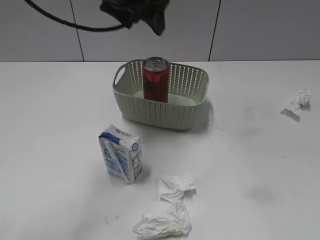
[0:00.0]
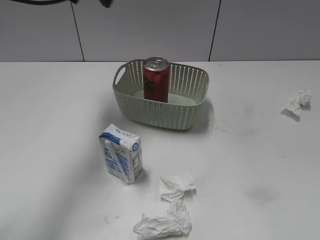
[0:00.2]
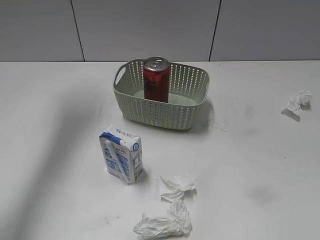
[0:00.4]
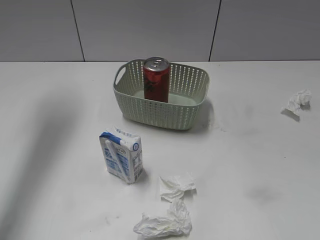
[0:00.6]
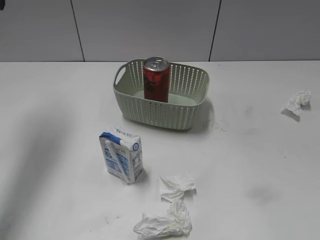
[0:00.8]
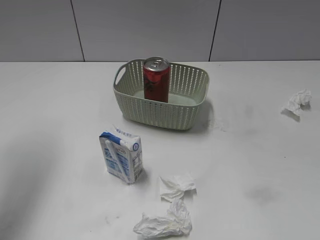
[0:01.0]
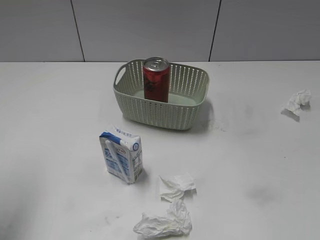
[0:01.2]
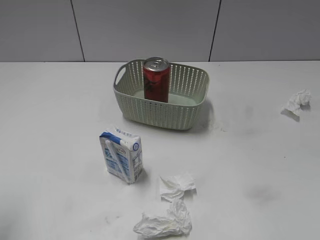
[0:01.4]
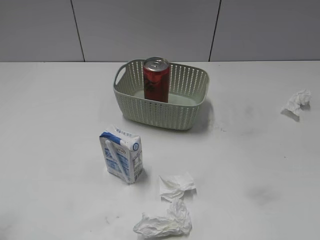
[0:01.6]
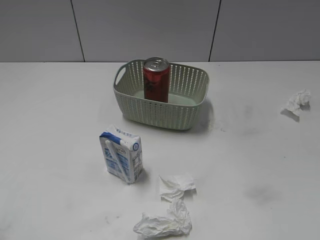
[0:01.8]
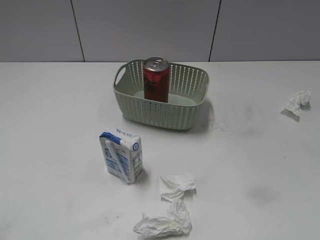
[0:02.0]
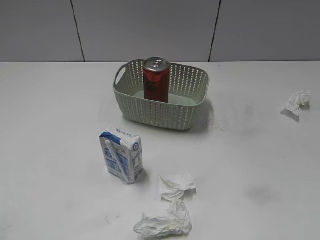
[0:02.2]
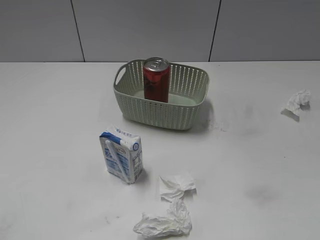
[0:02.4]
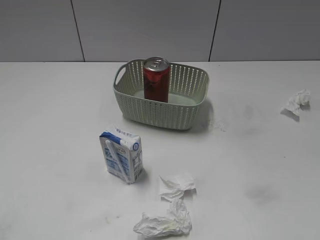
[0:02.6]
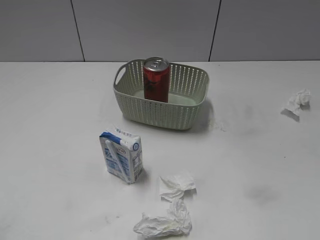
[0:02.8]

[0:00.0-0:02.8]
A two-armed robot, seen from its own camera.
0:00.0 to 0:01.4: The left gripper goes about 35 cm backward and to the left.

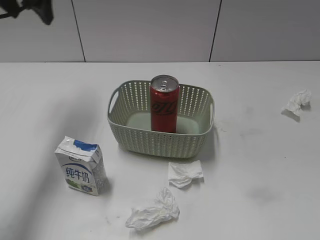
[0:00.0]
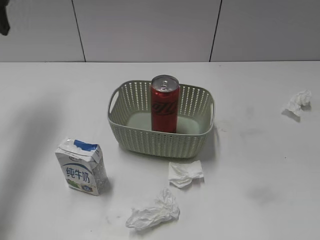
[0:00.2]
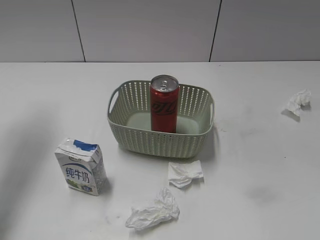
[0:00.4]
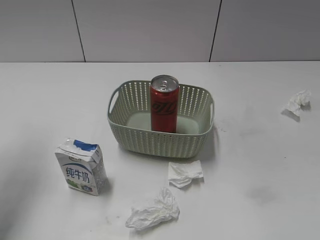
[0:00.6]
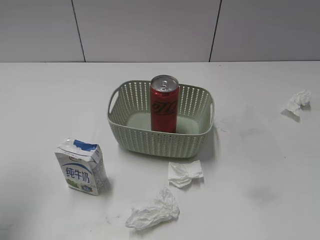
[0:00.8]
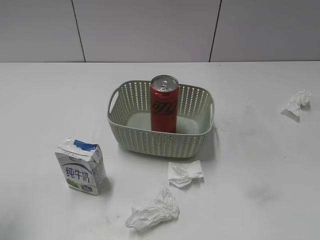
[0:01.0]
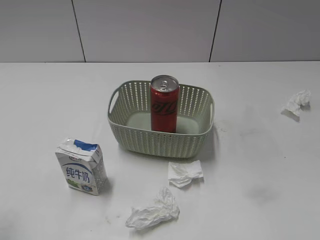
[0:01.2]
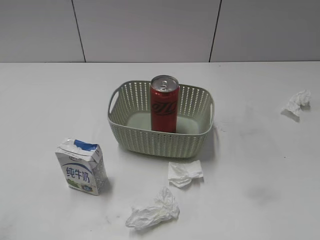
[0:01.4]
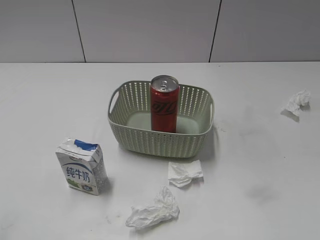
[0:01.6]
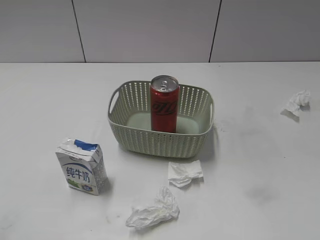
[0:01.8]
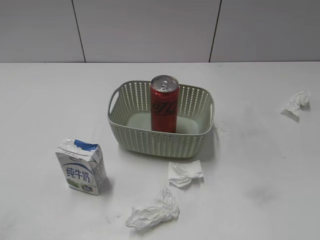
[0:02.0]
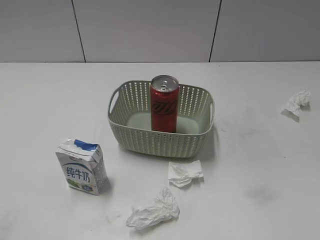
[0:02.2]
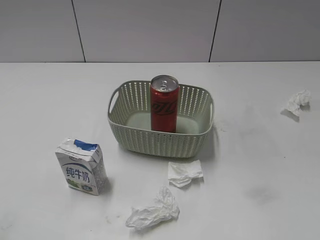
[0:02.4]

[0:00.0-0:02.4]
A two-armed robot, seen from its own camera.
0:00.0 to 0:01.2: The left gripper shifts some 30 cm backward.

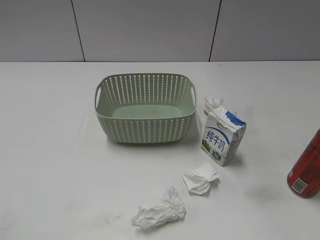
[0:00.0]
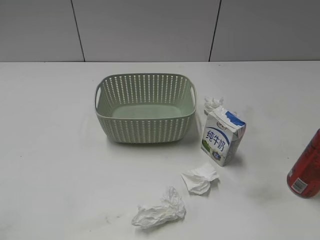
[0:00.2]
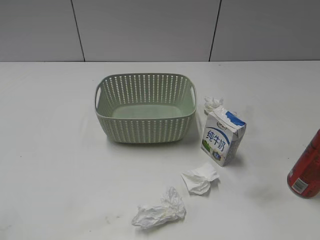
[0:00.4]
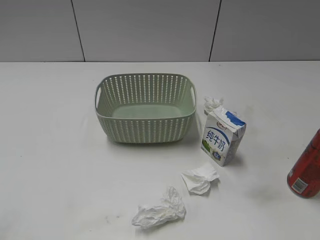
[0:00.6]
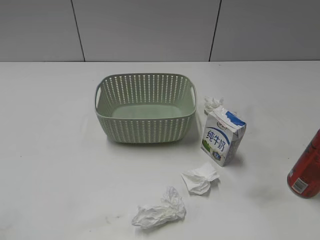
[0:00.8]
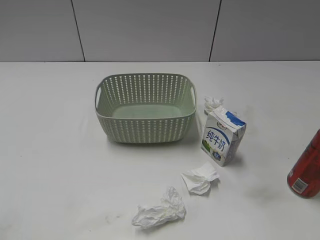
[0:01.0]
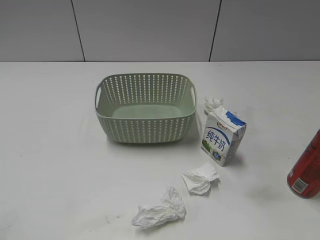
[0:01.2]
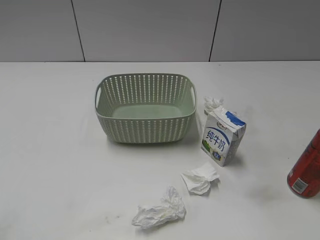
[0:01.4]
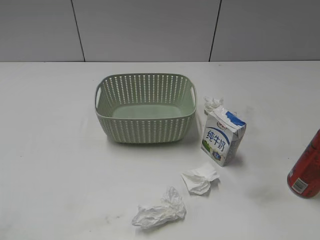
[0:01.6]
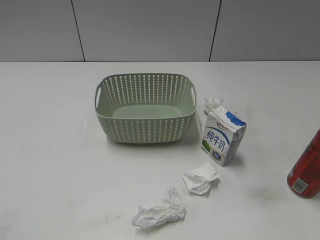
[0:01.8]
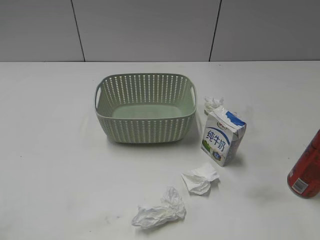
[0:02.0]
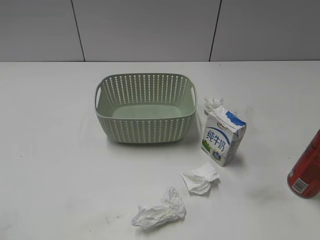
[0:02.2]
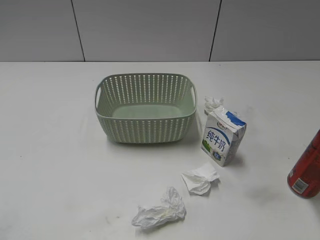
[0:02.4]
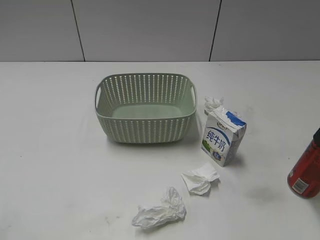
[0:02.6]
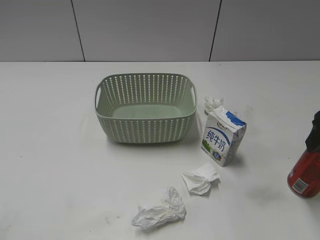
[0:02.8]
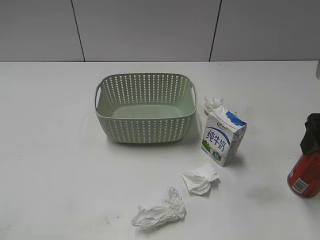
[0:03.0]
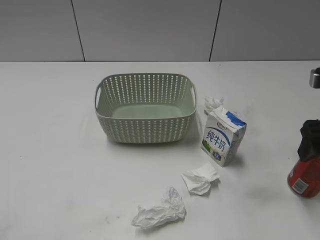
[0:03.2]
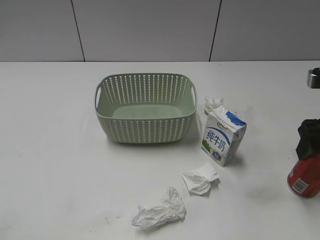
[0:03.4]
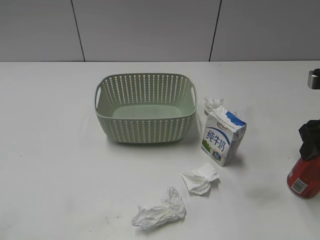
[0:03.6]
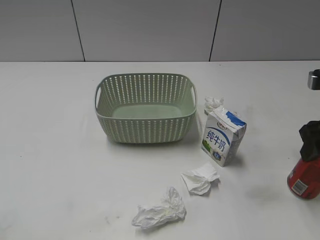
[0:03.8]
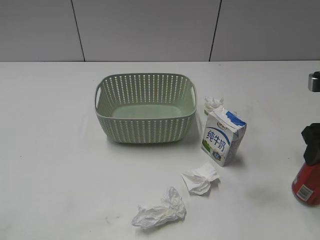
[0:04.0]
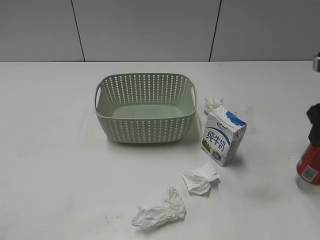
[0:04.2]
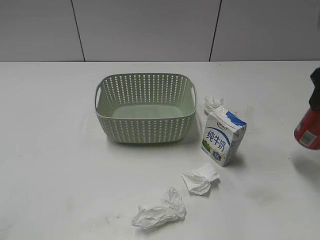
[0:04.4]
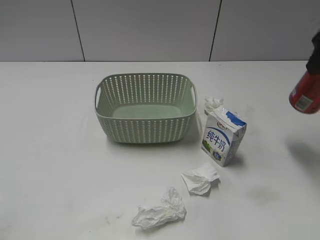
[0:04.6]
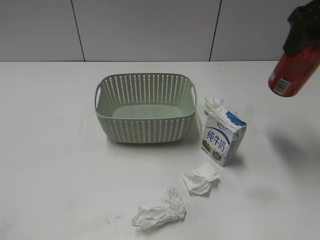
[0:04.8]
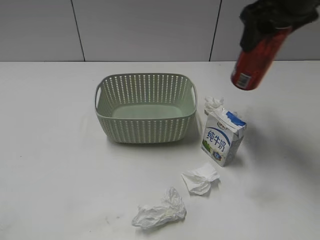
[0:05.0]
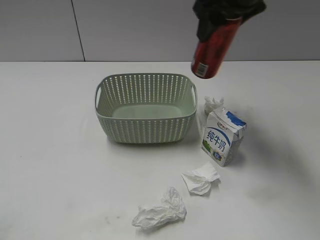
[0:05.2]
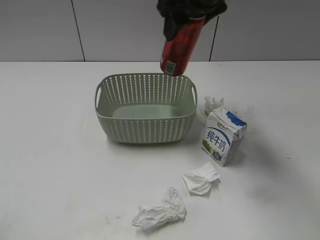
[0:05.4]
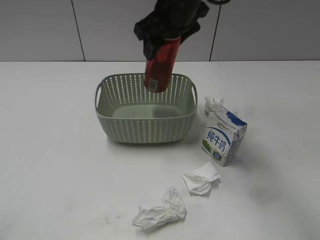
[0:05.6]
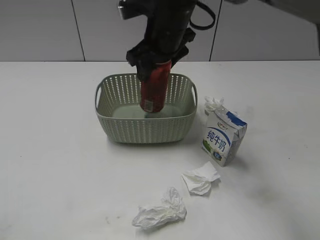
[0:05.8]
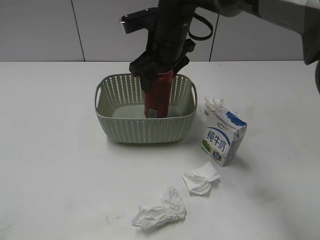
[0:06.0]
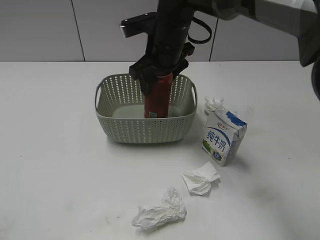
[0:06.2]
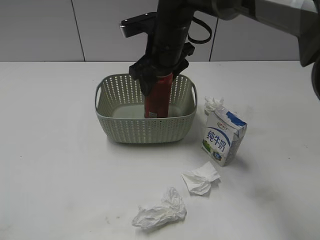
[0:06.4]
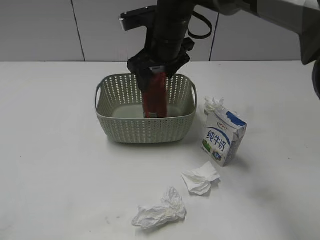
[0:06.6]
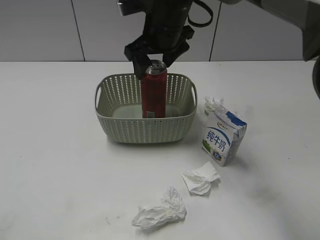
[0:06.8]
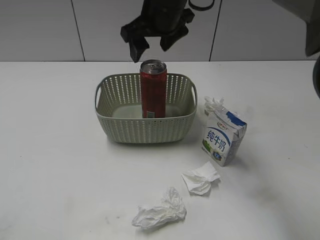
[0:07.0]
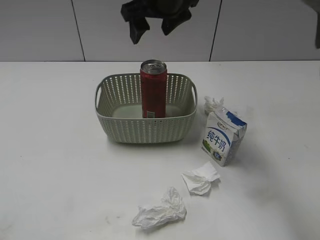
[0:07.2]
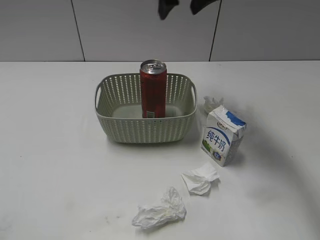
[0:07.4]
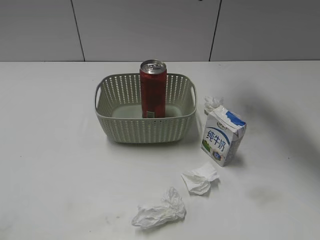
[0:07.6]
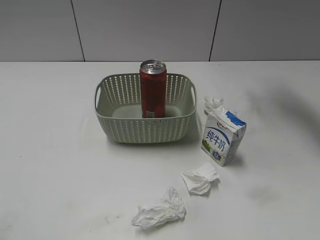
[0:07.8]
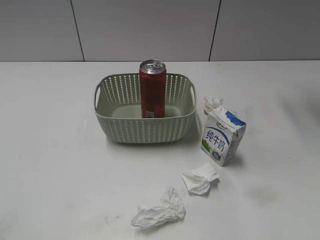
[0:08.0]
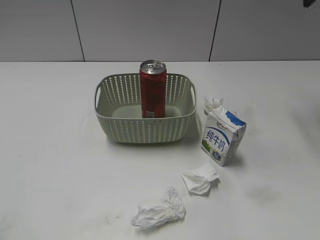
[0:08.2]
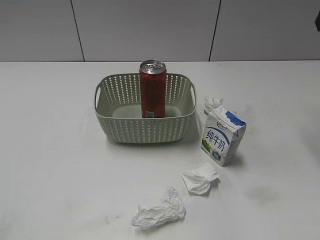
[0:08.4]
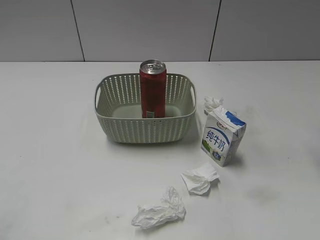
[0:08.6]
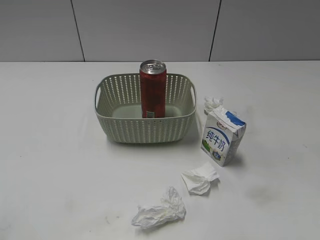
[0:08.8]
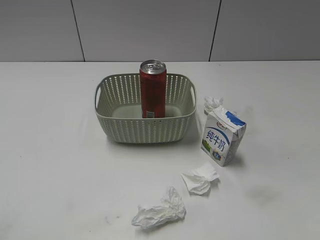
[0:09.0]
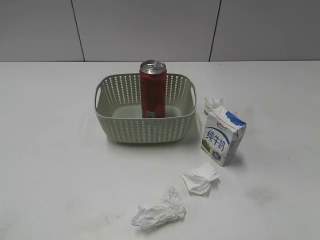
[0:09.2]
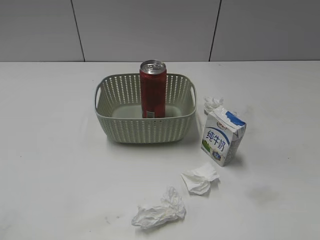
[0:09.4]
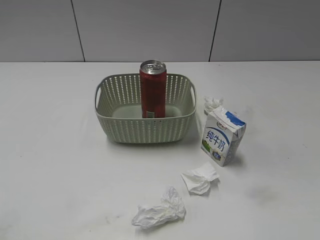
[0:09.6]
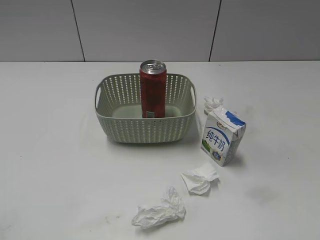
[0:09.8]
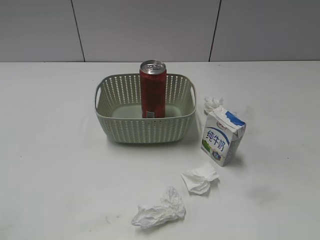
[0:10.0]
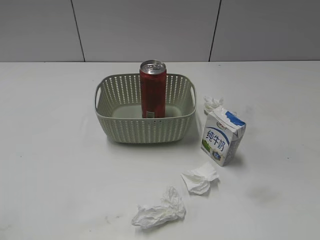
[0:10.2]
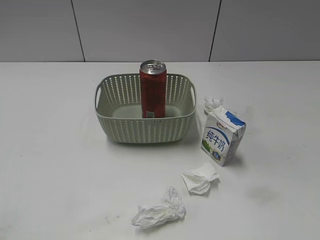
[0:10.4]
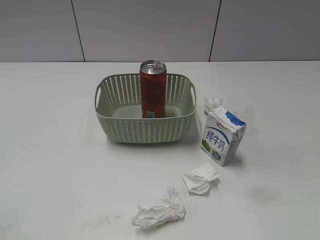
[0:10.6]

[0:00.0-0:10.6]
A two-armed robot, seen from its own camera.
Step, 0:04.0 to 0:07.0: Place the cola can in the basket with right gripper.
0:01.6 to 0:03.0: The right gripper travels forward by about 20 cm.
0:03.0 to 0:04.6: The right gripper travels upward and forward by about 10 cm, and closes up.
0:04.6 to 0:06.0: The right gripper moves to the left and forward, about 30 cm.
0:06.0 to 0:07.6: The right gripper is displaced upward and to the right by about 20 cm, and opens.
0:07.6 to 0:09.0: The right gripper shifts roughly 30 cm backward and to the right.

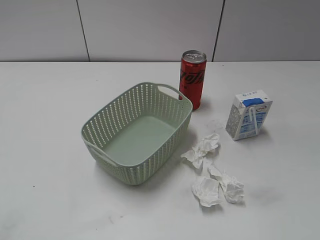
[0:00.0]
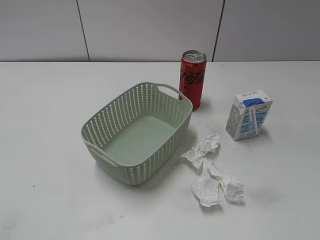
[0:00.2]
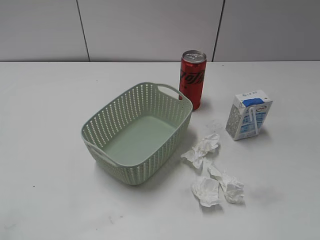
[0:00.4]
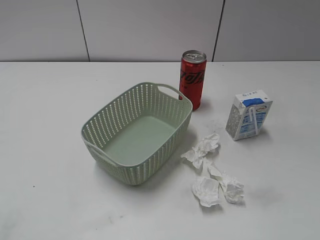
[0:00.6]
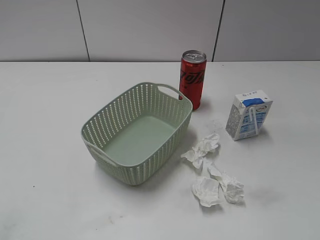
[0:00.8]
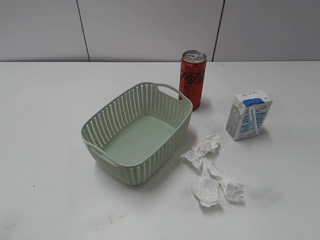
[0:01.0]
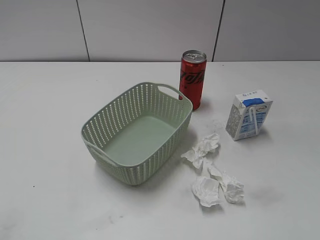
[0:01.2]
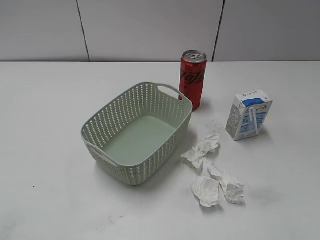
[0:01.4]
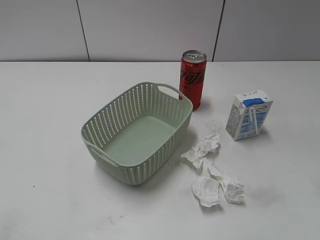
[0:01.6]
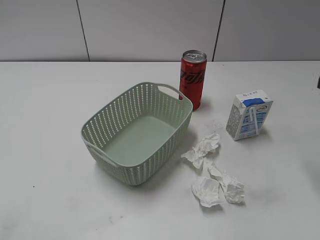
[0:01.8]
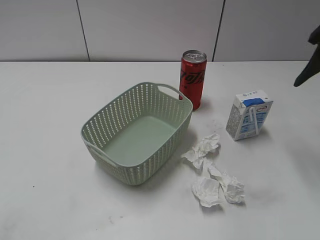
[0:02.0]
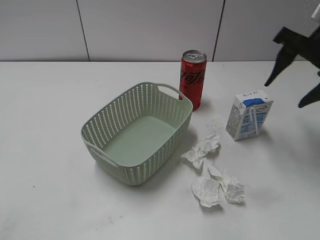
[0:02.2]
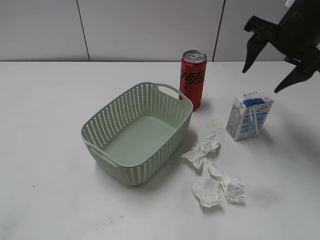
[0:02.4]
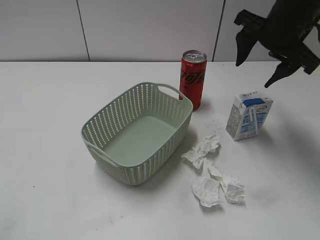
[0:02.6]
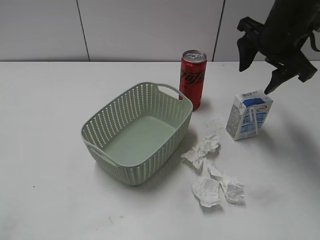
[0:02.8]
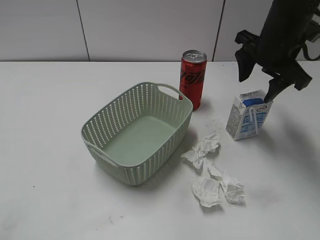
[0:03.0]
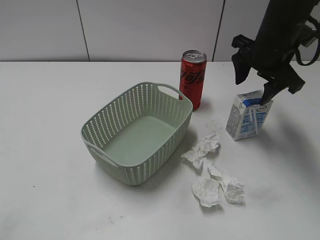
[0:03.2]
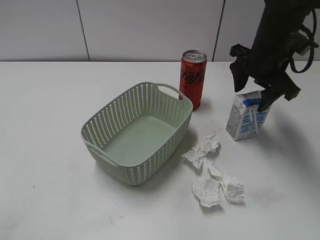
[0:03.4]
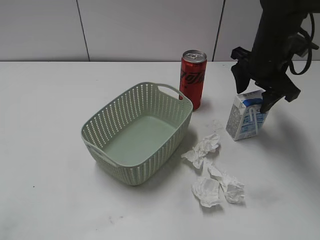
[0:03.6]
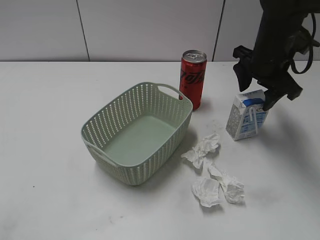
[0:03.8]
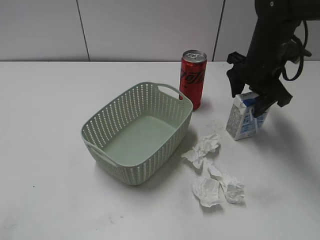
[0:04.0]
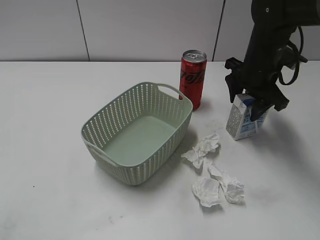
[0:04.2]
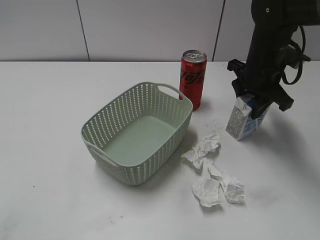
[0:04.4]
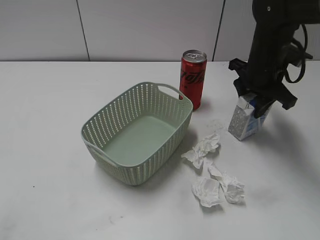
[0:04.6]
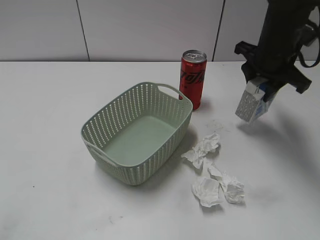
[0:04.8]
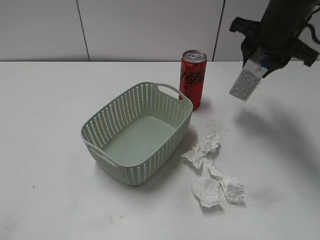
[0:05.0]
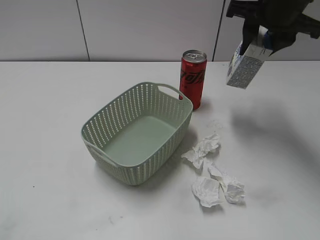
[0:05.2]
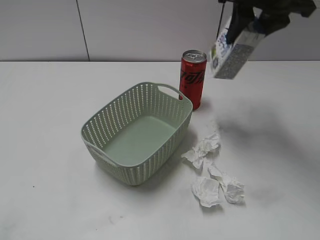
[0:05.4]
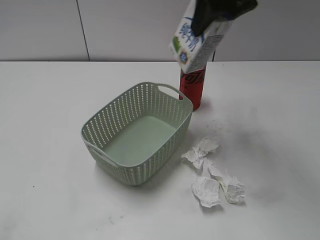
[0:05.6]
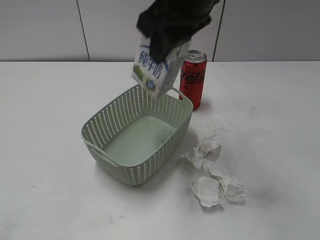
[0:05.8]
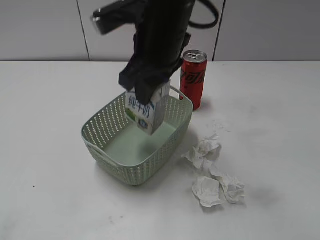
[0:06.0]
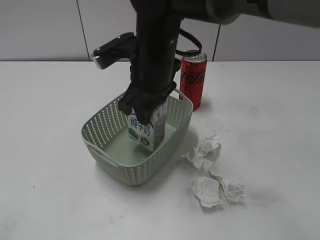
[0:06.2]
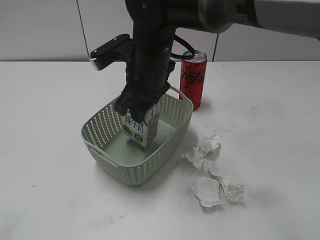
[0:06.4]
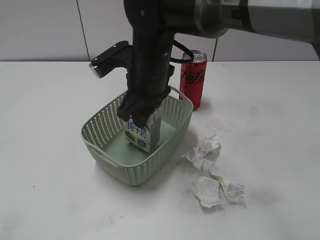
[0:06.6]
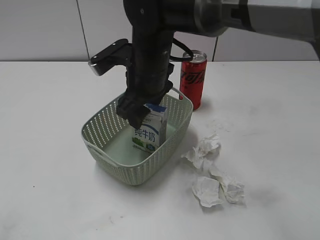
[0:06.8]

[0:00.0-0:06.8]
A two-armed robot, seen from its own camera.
Step, 0:01.8 to 0:04.4: Grasp the milk with right gripper.
0:01.4 to 0:02.8: The right gripper goes about 30 cm forward and to the left.
0:02.8 to 0:04.0: The right gripper heads downward, covering some 10 cm.
0:04.0 to 0:05.4: The right gripper heads upward, covering some 15 cm, and closes its fingers.
0:05.4 to 0:06.8: The right gripper travels to the left and downward by roughly 20 cm, and opens.
